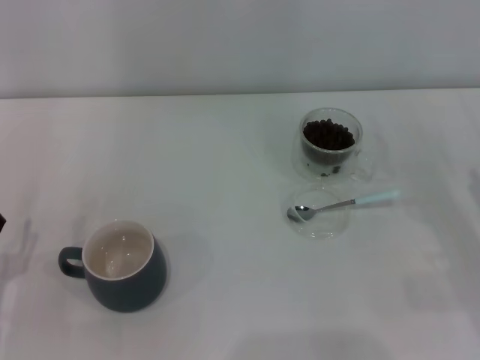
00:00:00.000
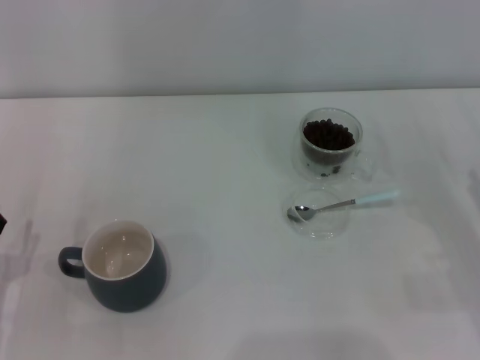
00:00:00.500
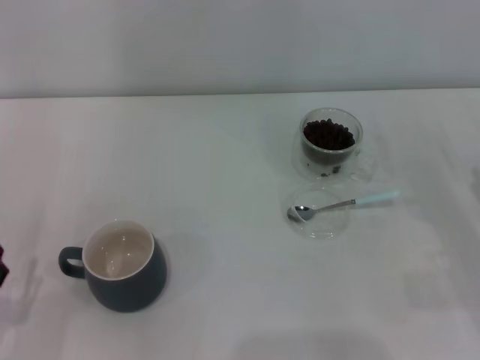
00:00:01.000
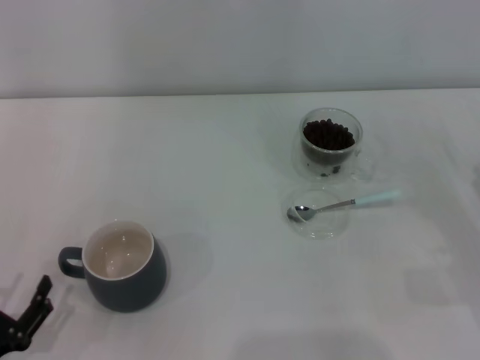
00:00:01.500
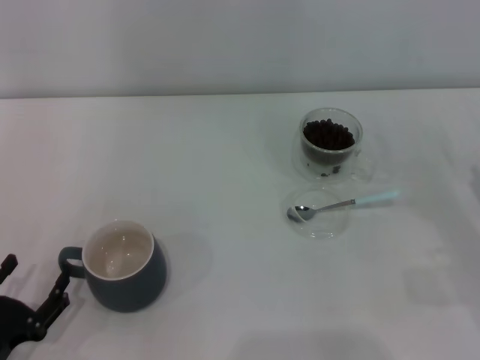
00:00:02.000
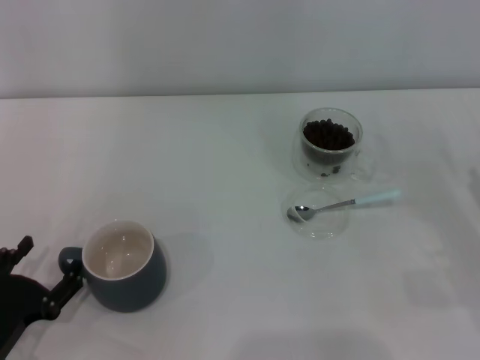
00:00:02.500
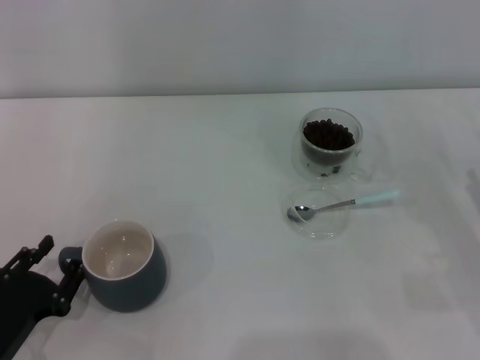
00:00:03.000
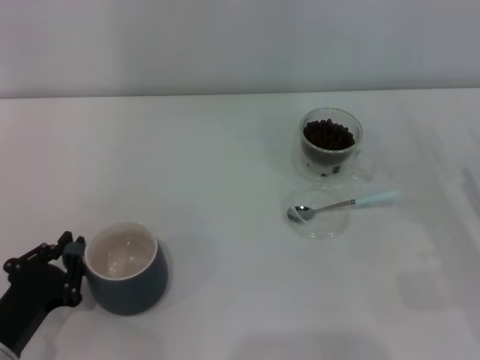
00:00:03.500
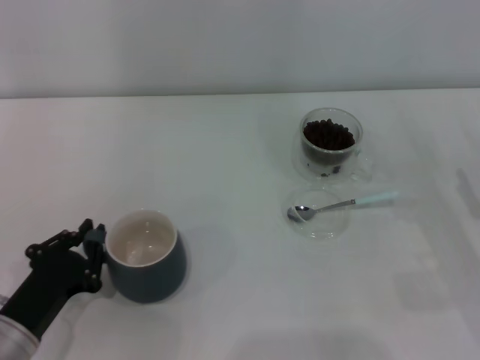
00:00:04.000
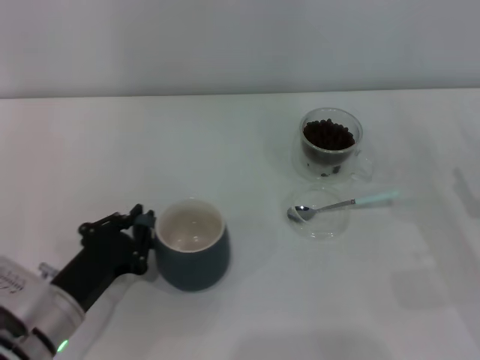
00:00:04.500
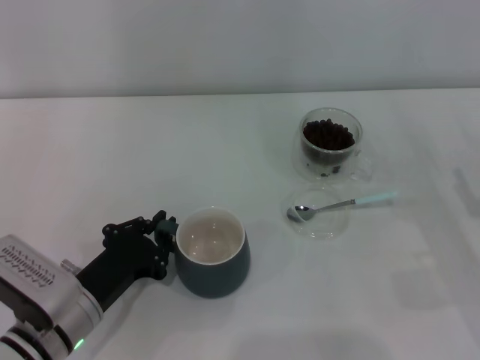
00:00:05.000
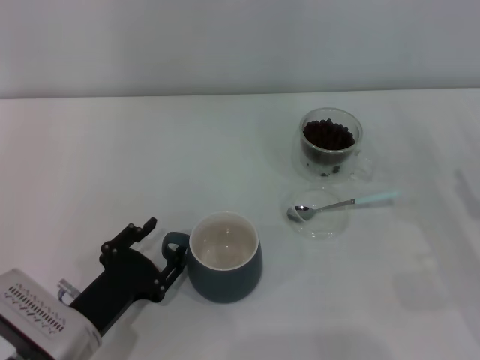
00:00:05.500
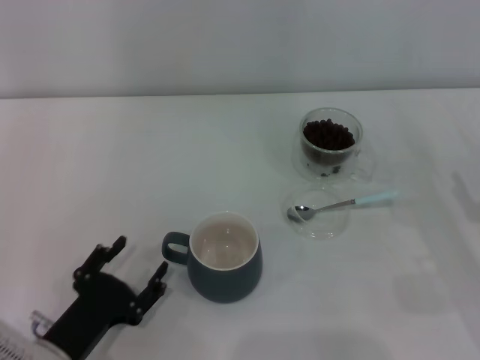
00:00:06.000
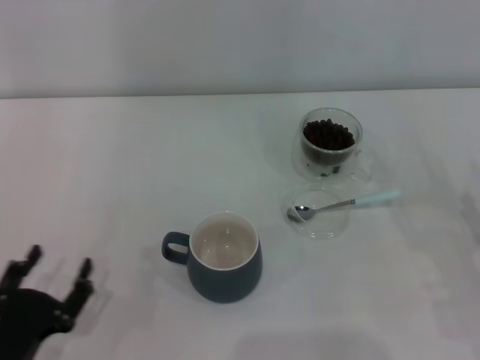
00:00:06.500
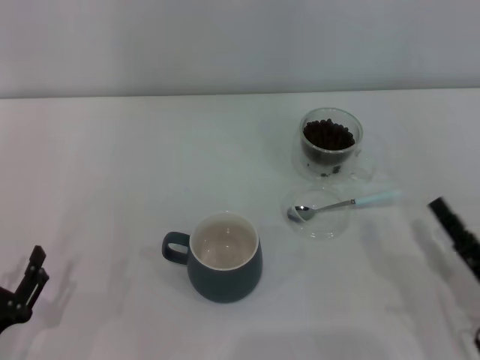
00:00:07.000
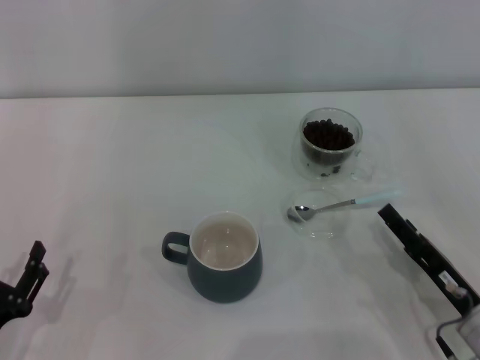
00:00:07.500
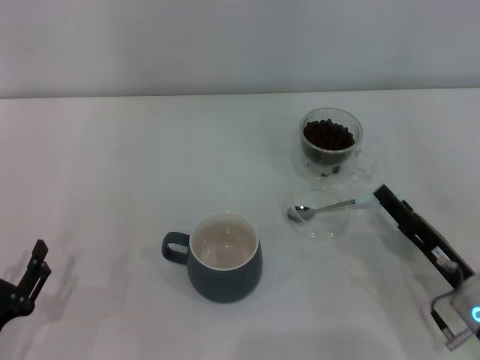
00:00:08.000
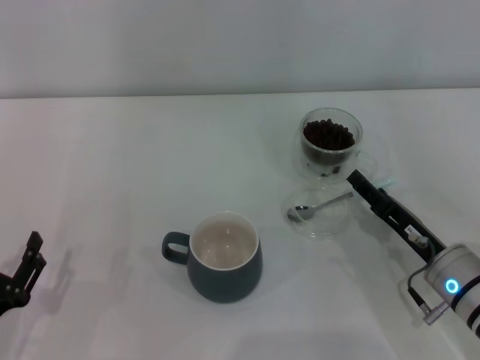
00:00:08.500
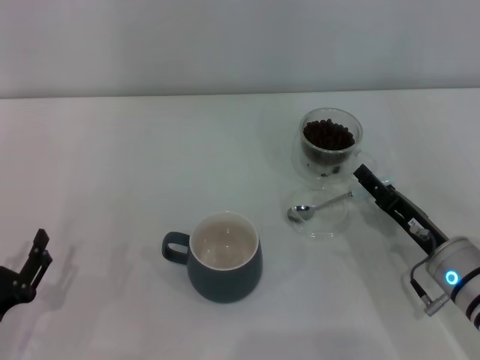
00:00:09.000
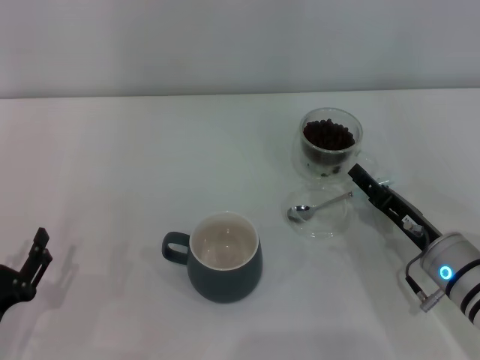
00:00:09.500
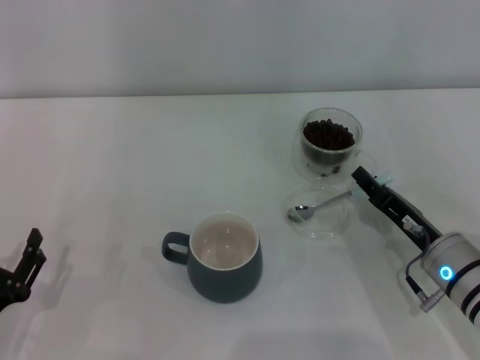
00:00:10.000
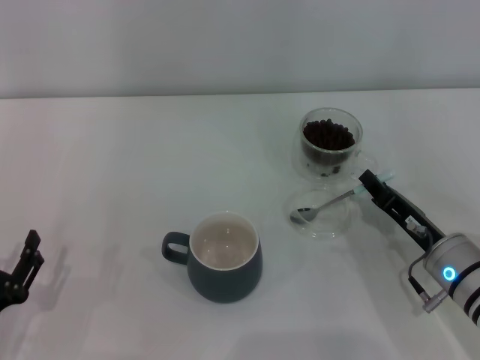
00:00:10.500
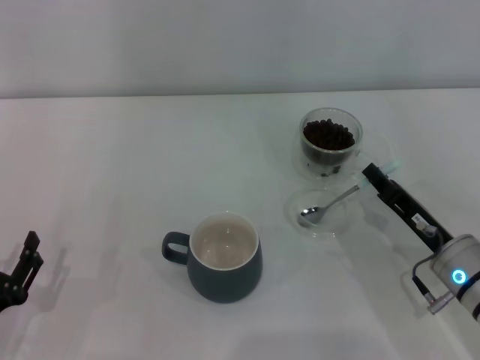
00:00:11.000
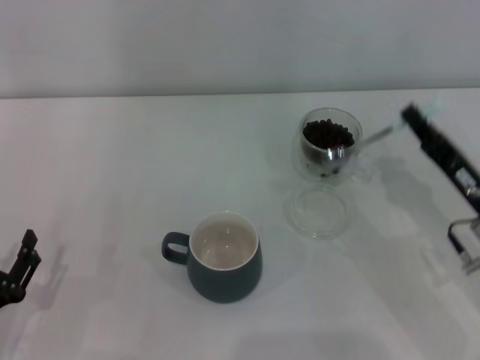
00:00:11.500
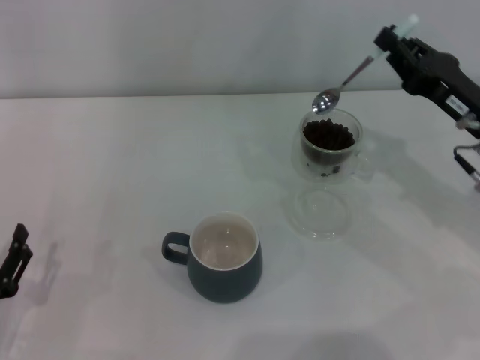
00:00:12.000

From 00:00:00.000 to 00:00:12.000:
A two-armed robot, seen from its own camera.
Task of the whole recording: Use a blue spoon to take out the coffee beans from the glass and pour them into the gray cup.
Step, from 00:00:00.000 to 00:00:06.000: Move the cup to the center of view with the left gripper.
Step, from 00:00:06.500 to 00:00:11.000: Pick up the spoon with the right gripper.
From 00:00:00.000 to 00:00:02.000: The left gripper shifts approximately 5 cm backward.
From 00:00:02.000 to 00:00:04.000: The left gripper goes roughly 5 cm forward, and closes.
From 00:00:04.000 to 00:00:06.000: The left gripper opens.
From 00:00:06.000 to 00:00:08.000: Both grippers move to the left, some 10 cm.
From 00:00:08.000 to 00:00:10.000: The grippers stay close to where they were, moving slightly.
From 00:00:10.000 to 00:00:12.000: The right gripper moves upward and forward, roughly 15 cm, and closes its fingers.

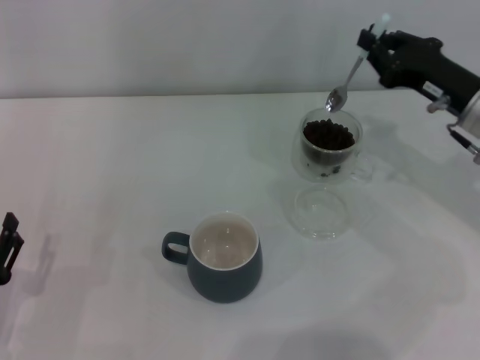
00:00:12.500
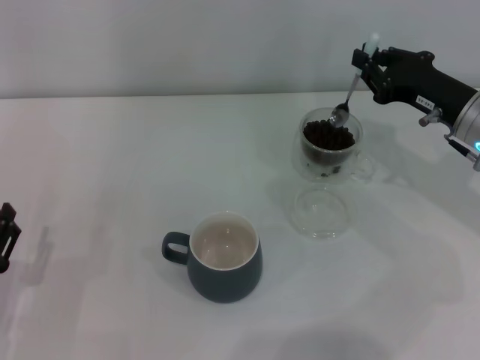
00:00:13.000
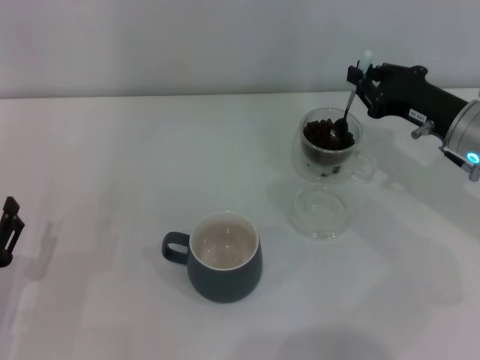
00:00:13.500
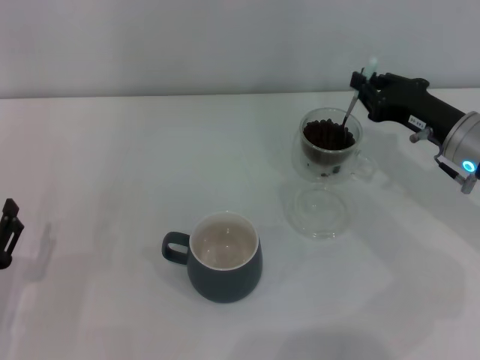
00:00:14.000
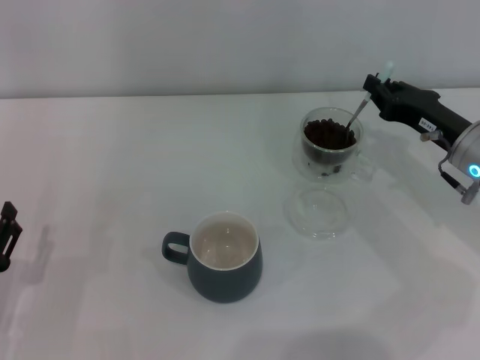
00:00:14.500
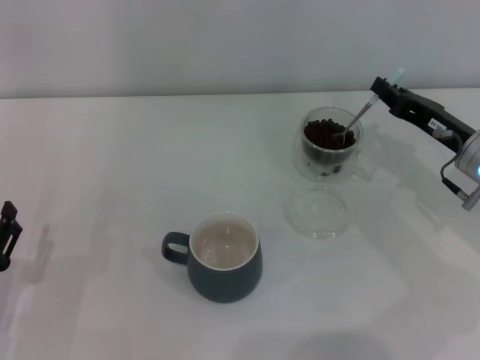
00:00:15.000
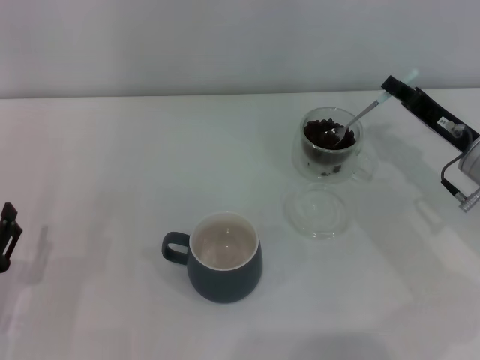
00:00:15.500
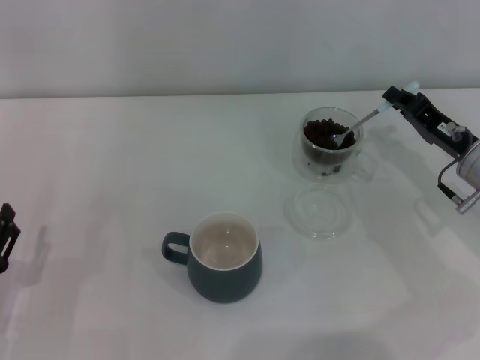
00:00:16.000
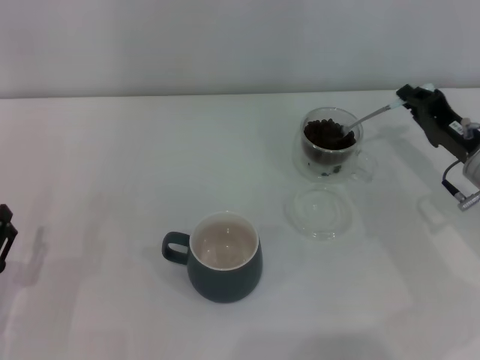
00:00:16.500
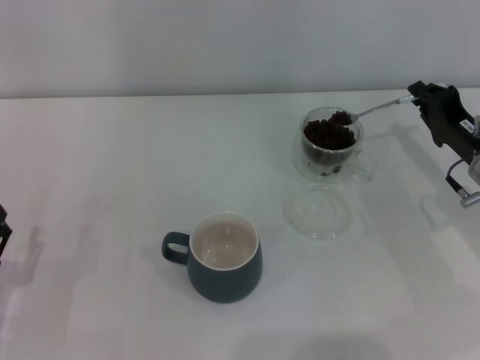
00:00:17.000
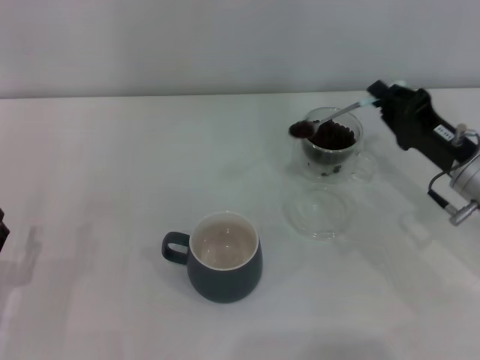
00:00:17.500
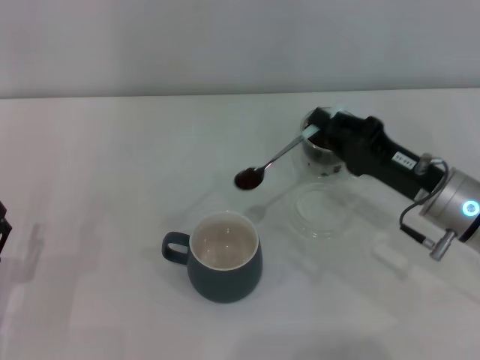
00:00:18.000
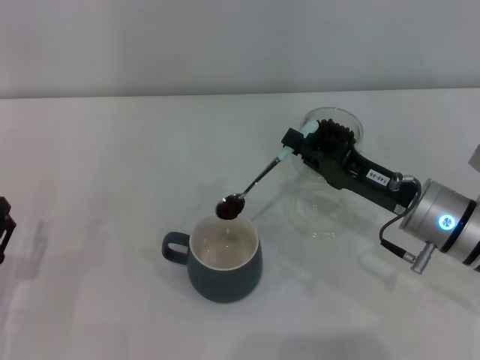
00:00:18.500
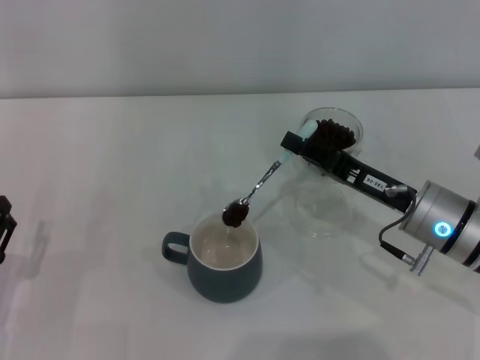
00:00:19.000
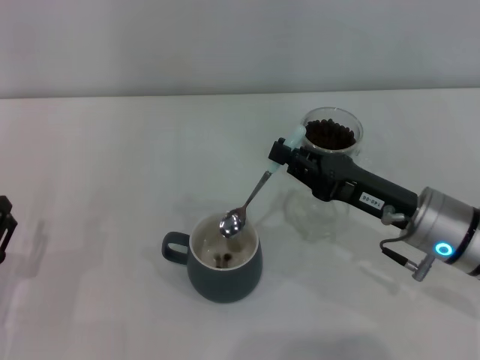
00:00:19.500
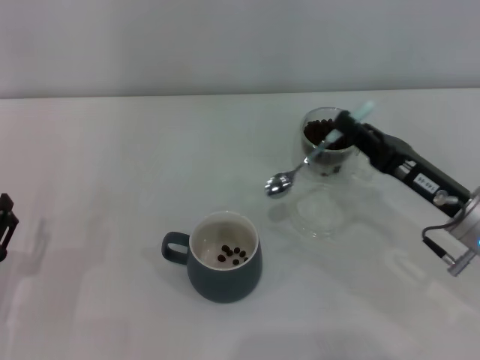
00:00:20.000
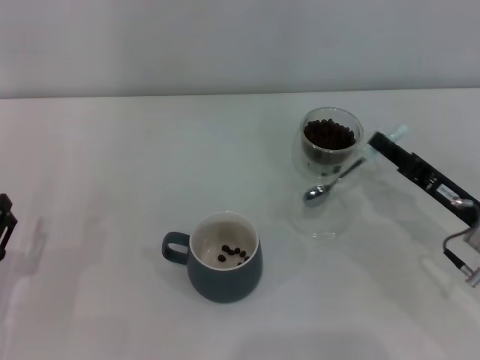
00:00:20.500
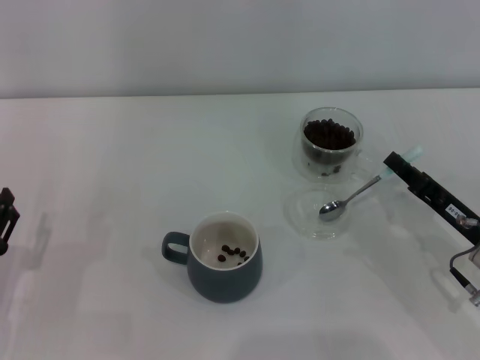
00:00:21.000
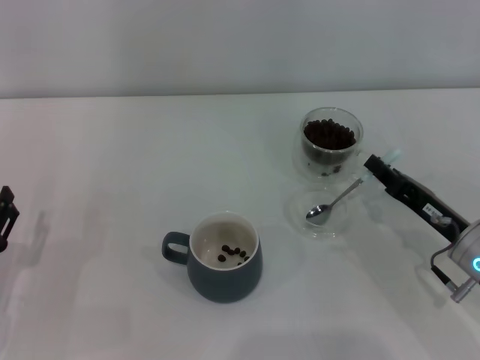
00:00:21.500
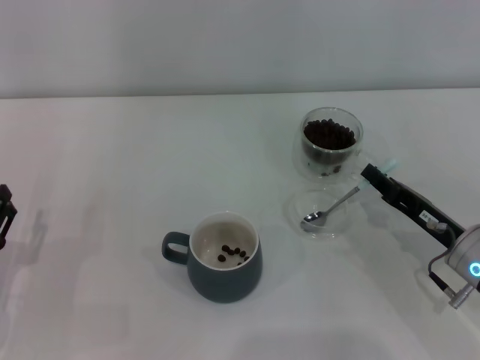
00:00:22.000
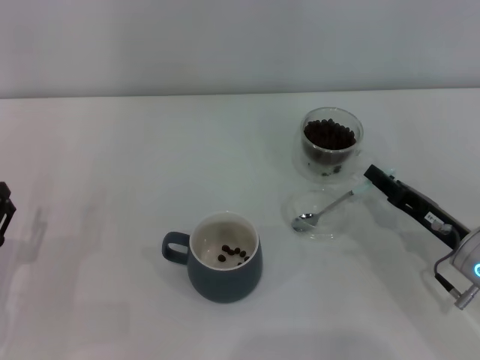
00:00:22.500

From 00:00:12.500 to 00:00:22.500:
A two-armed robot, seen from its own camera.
Task of the whole recording: Use a blue spoon to take out the coffee beans from the glass and pour them into the gray cup.
Step, from 00:00:12.500 to 00:00:19.500: Scoop a spoonful of beans into the cup with the right gripper.
From 00:00:12.500 to 00:00:14.500: There are only small adjustments of the grippers.
From 00:00:16.500 to 00:00:18.500: The right gripper shifts roughly 10 cm to the left.
From 00:00:18.500 to 00:00:20.500: The right gripper travels to the right by some 5 cm.
From 00:00:20.500 to 00:00:22.500: The grippers stay close to where they were, moving slightly.

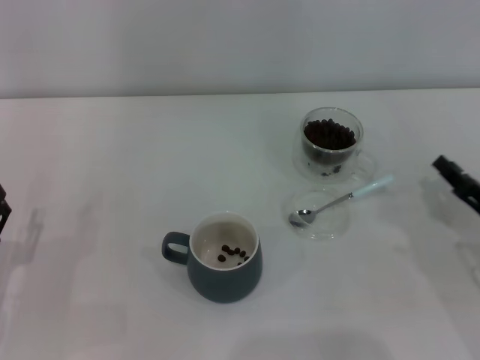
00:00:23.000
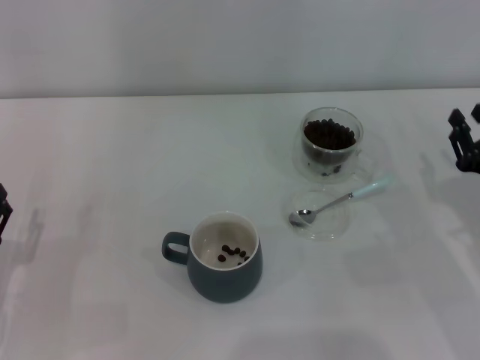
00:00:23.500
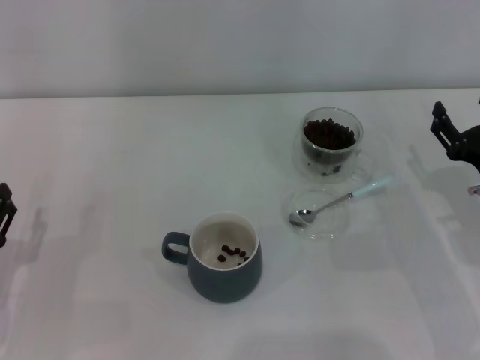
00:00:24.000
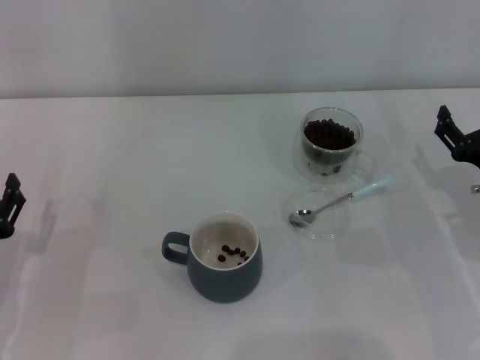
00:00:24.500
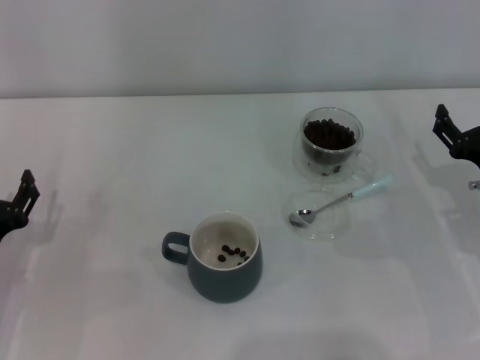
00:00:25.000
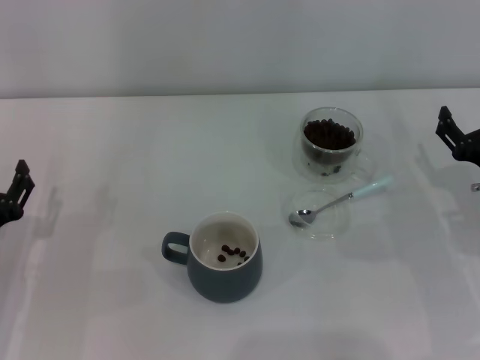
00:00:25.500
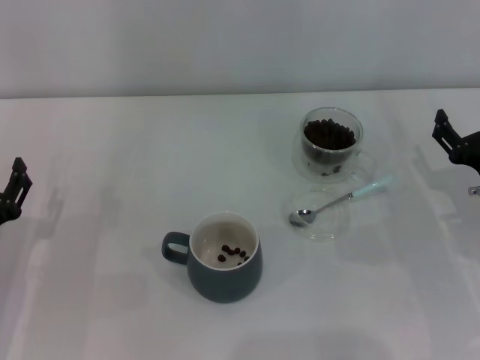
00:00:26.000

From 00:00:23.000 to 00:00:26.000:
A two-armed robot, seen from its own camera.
Task of the whole recording: Use a blue spoon to take out the coffee beans from the glass and pour them into the gray cup.
From 00:00:23.000 to 00:00:24.500: The right gripper opens.
From 00:00:24.500 to 00:00:26.000: There are only small adjustments of the grippers.
